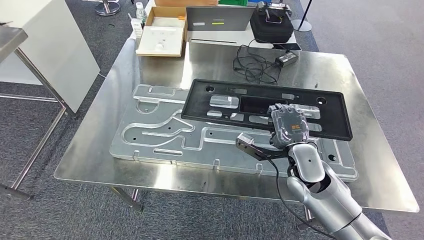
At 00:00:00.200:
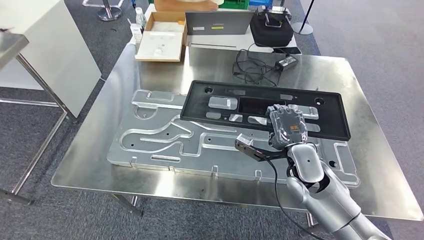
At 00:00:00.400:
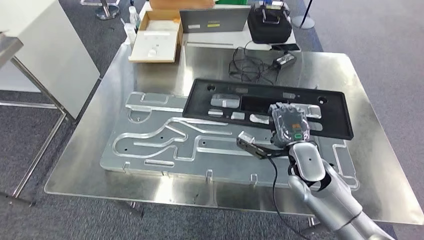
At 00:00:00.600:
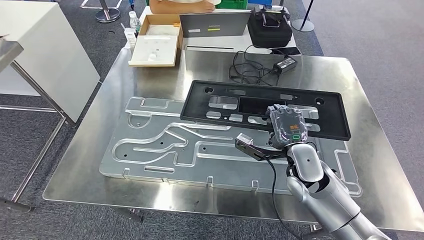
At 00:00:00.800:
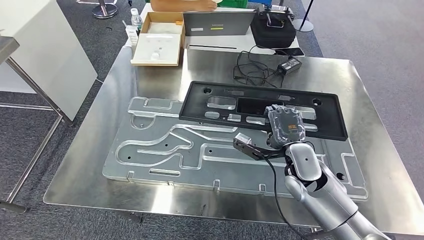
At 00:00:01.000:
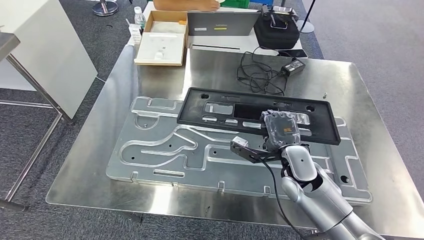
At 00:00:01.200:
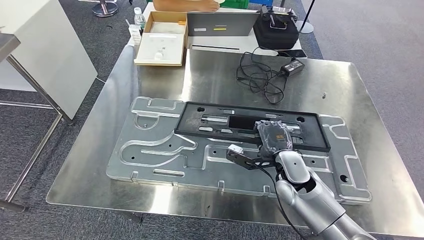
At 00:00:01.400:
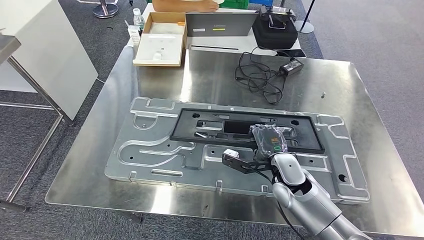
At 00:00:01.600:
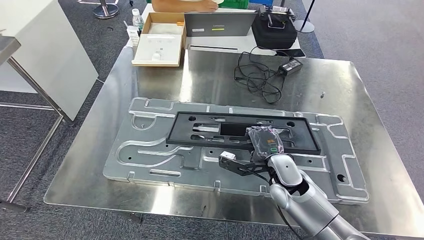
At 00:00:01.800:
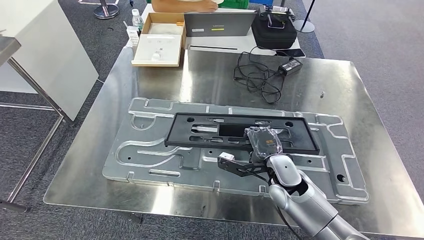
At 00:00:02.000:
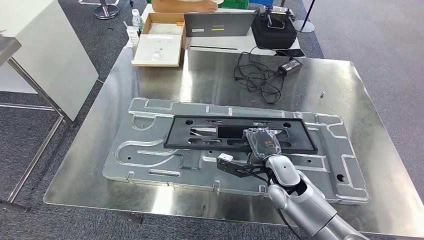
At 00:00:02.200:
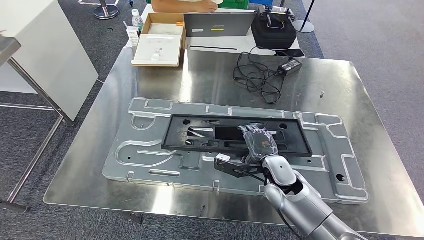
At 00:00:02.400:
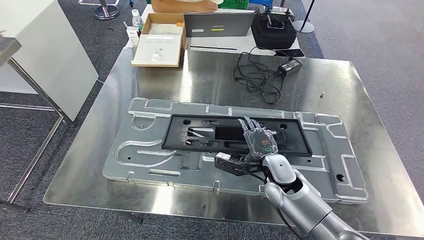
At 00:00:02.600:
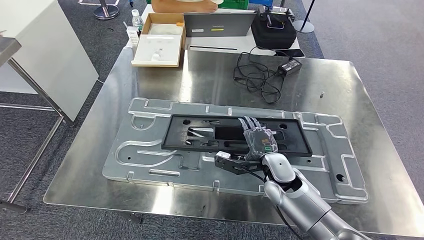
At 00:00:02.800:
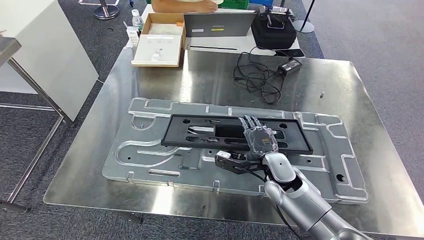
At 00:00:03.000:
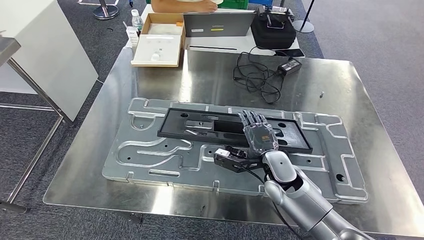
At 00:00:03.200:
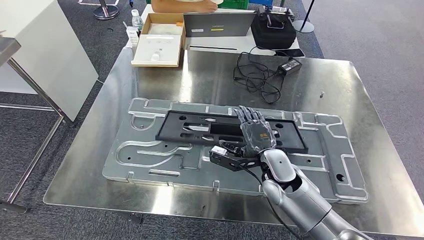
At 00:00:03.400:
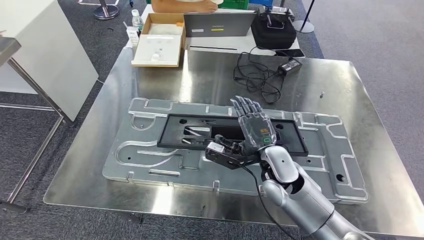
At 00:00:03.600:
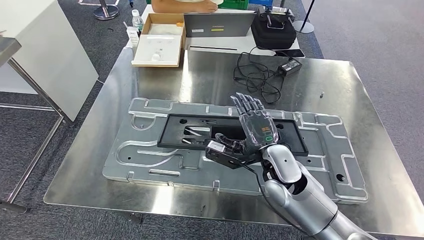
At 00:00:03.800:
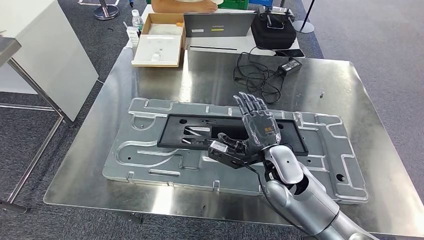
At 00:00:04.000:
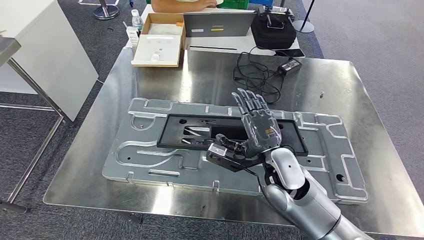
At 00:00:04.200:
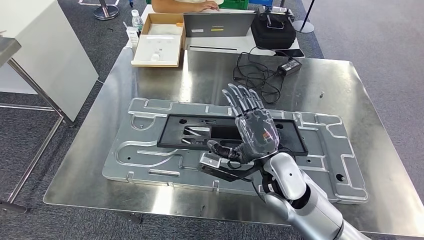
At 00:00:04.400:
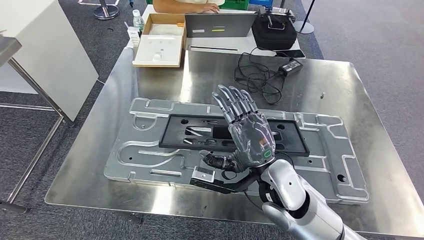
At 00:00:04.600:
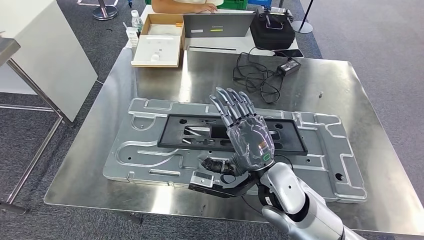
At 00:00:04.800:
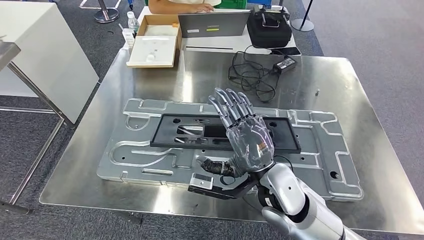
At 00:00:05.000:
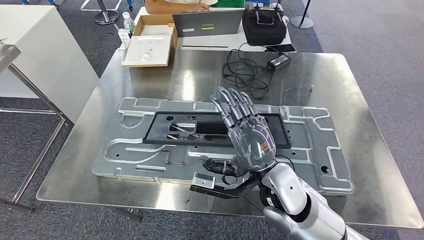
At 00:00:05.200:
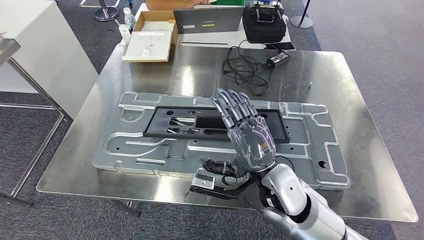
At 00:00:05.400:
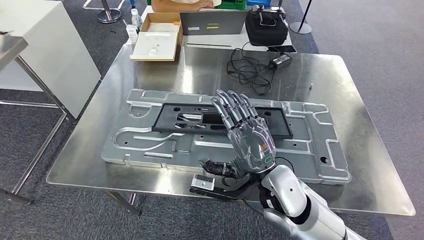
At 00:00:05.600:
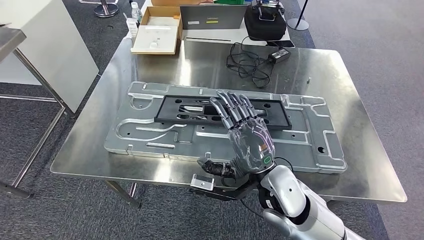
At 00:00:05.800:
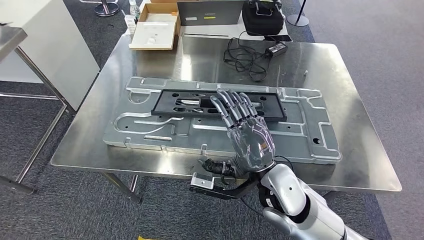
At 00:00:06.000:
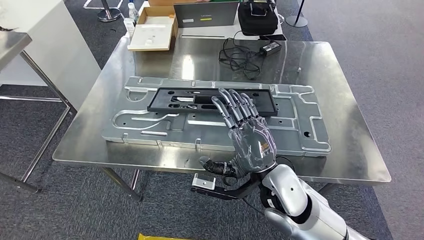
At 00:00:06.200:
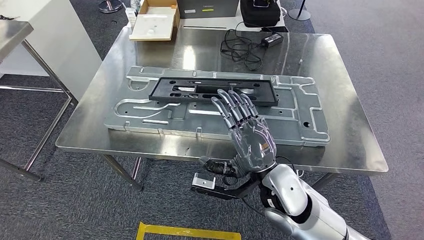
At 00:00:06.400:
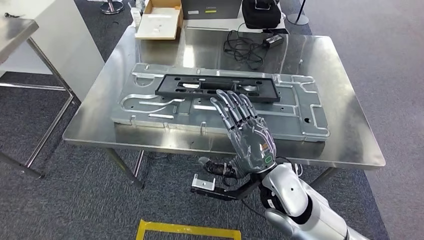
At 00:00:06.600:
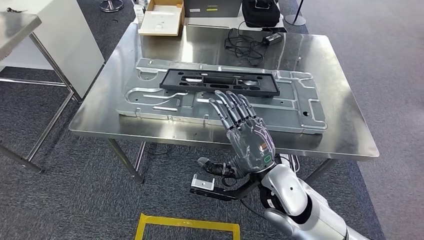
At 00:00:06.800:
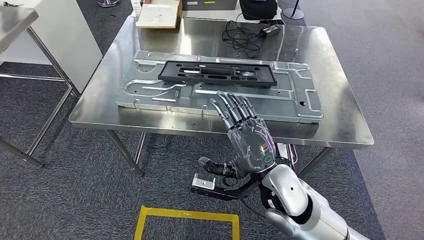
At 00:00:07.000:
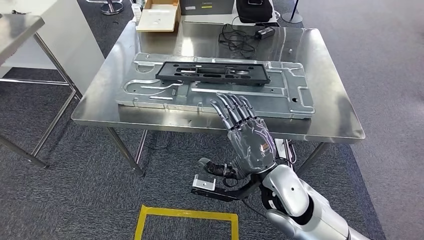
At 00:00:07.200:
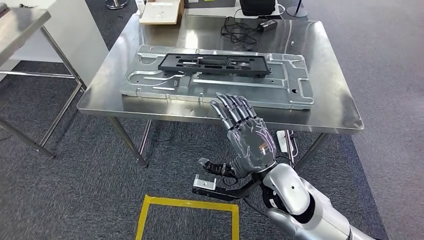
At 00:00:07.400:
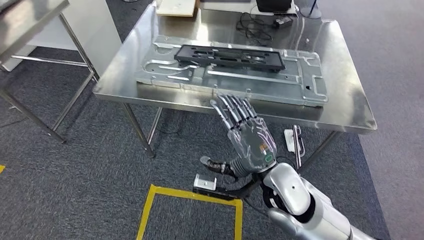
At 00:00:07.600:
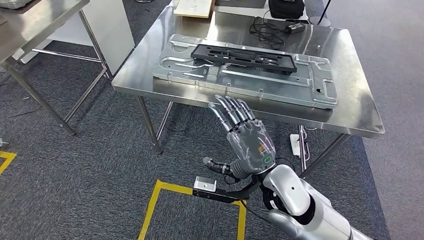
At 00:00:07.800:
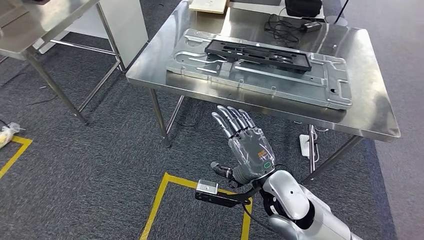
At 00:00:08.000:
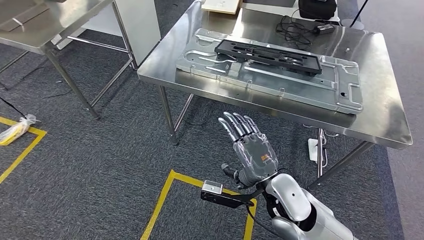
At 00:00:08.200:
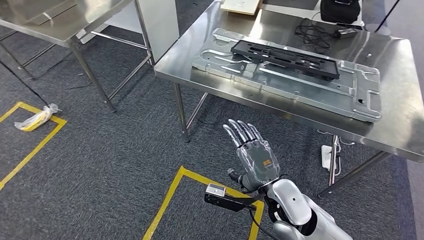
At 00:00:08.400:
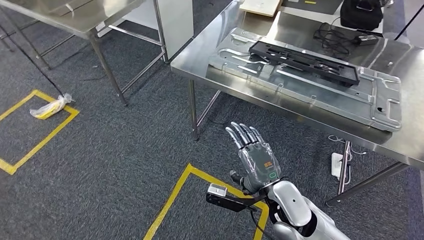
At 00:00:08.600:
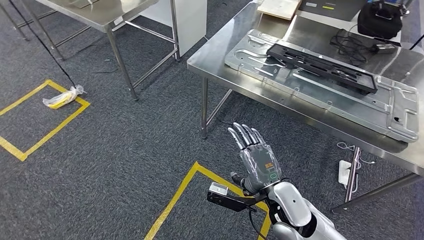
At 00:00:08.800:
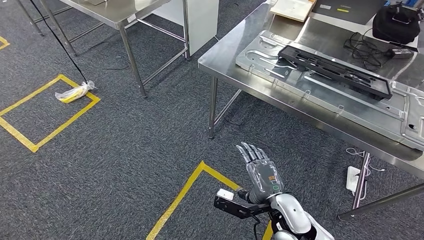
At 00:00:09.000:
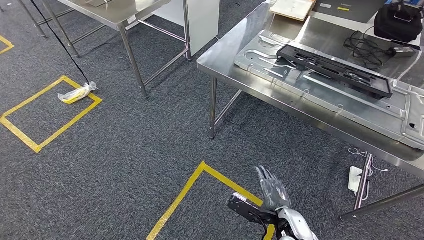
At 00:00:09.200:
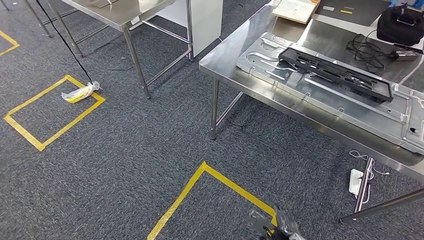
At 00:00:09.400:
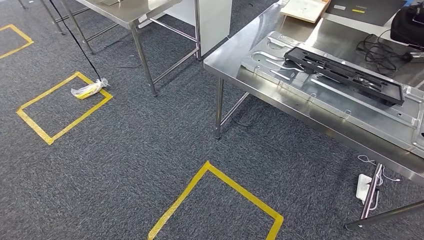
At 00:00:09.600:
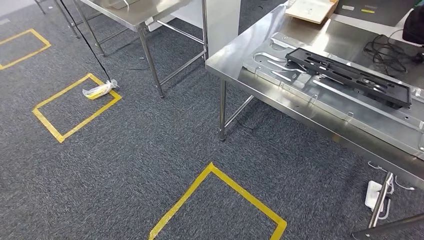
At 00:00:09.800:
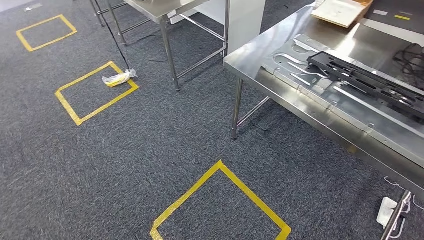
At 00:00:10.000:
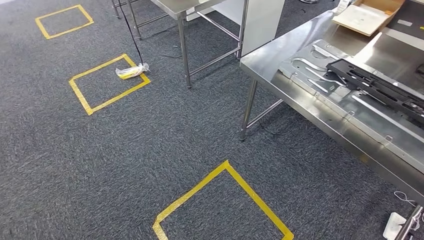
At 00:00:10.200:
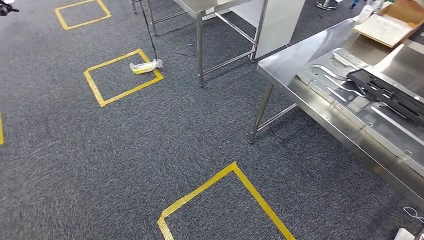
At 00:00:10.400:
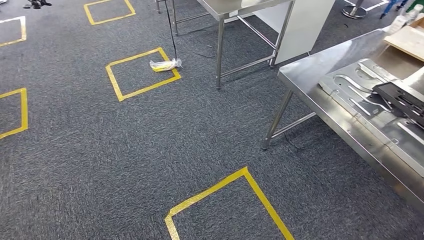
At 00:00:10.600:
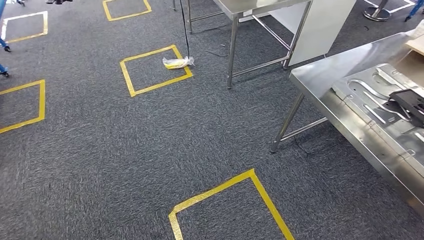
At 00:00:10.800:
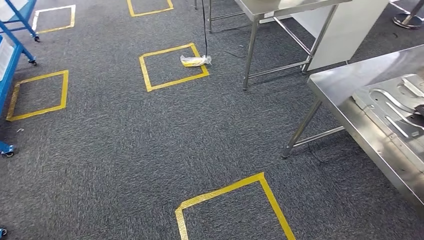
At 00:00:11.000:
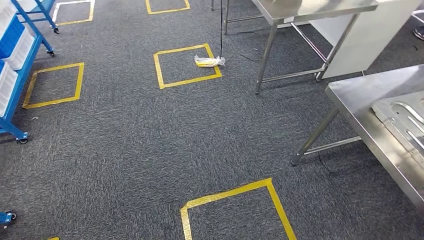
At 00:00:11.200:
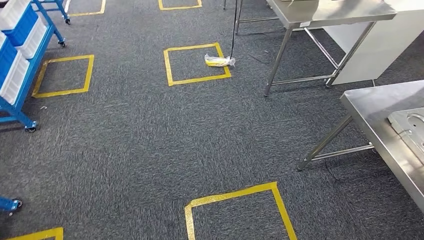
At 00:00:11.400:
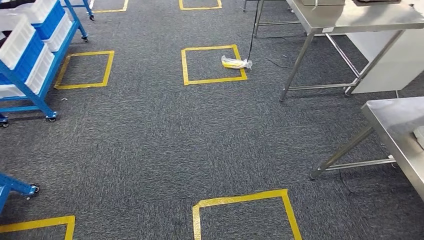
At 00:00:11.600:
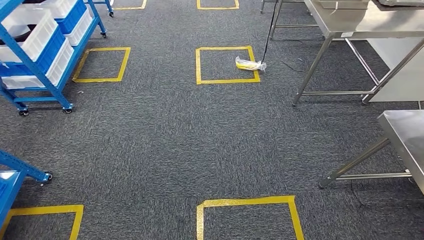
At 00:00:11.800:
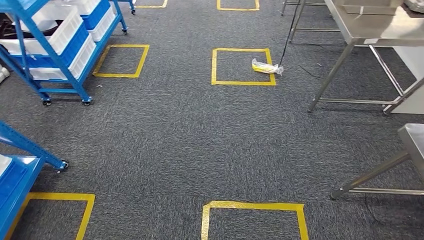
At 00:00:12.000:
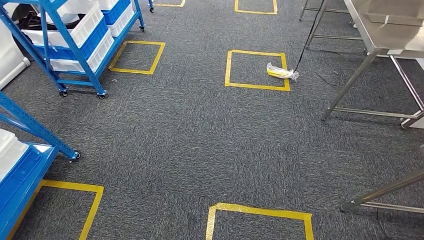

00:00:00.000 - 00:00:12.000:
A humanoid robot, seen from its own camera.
Step, 00:00:00.000 - 00:00:03.400: Insert the large material into the corresponding slot on the workbench.
00:00:01.600 - 00:00:03.000: The hands move only a little.
00:00:03.000 - 00:00:04.400: The right hand heads upward, backward and to the left, covering approximately 10 cm.

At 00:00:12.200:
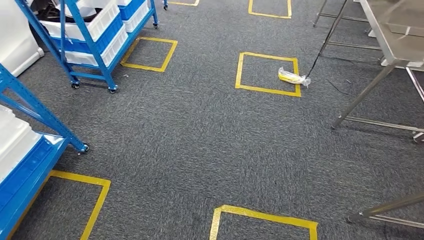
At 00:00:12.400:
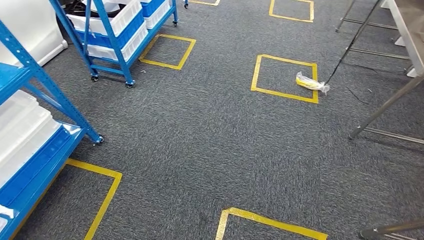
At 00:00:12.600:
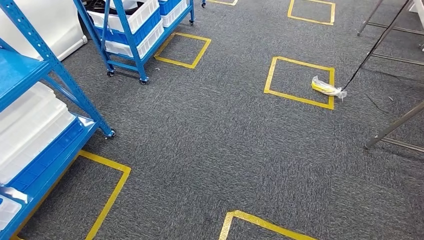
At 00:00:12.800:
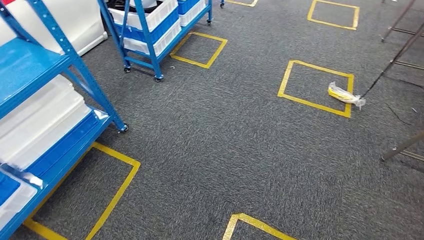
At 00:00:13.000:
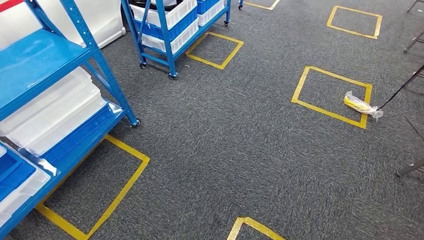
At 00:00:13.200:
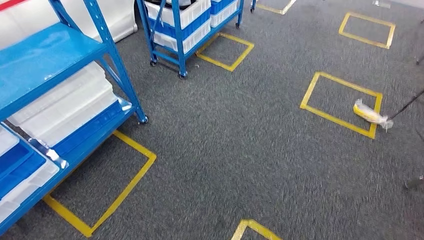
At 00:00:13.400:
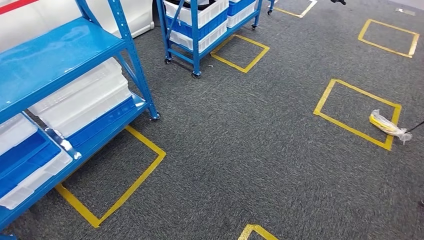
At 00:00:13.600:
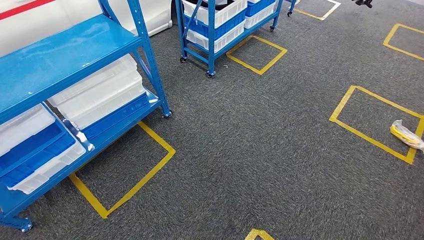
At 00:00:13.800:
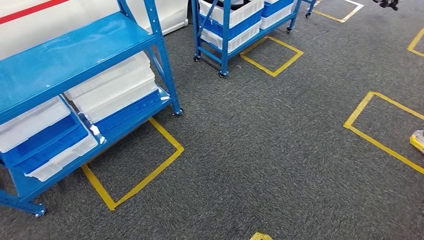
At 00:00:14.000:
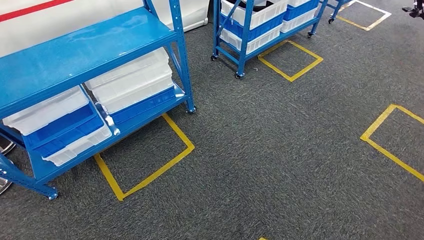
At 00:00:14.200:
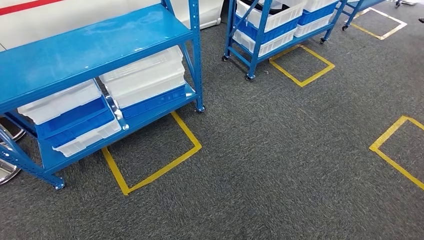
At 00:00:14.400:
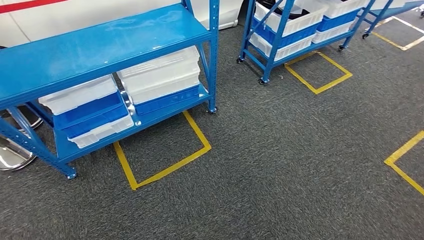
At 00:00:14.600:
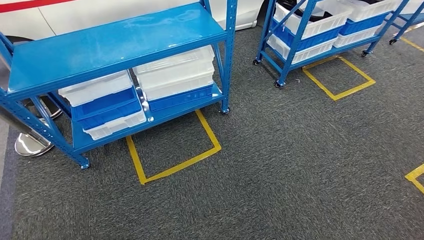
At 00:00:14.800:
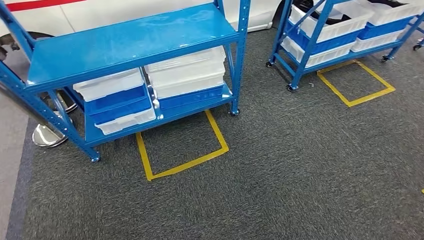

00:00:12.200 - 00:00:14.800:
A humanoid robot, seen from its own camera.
Step, 00:00:12.200 - 00:00:14.600: Return to the initial position at the shelf.
